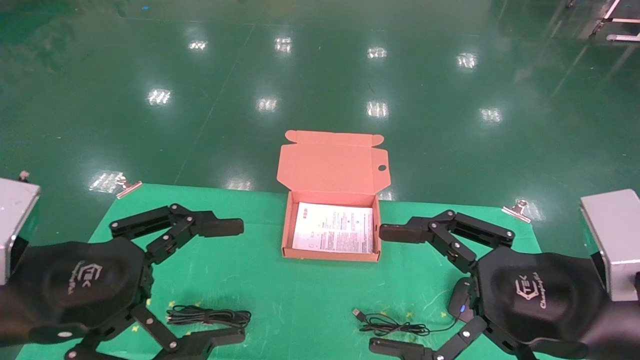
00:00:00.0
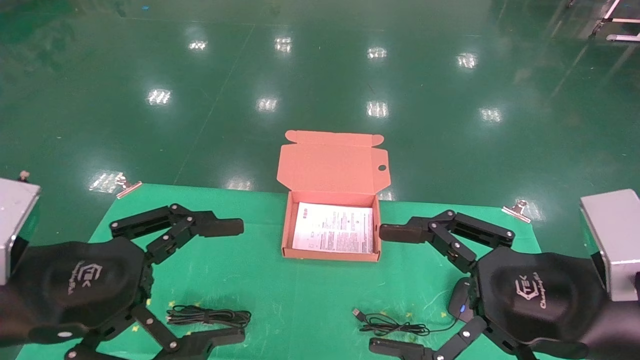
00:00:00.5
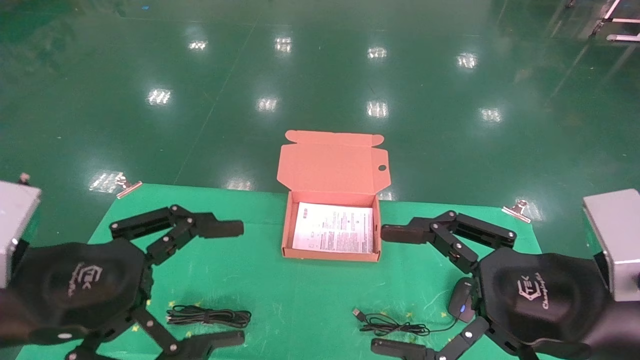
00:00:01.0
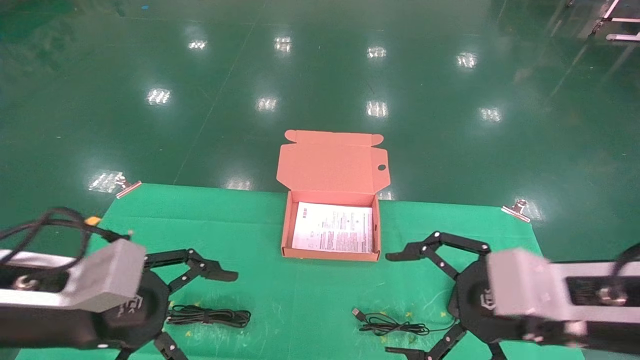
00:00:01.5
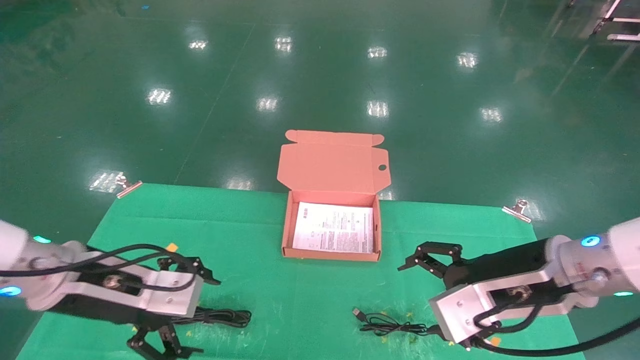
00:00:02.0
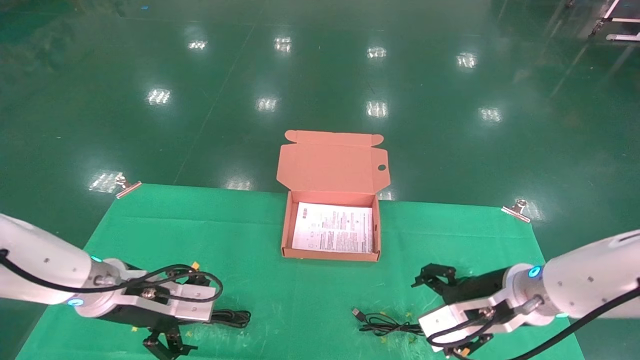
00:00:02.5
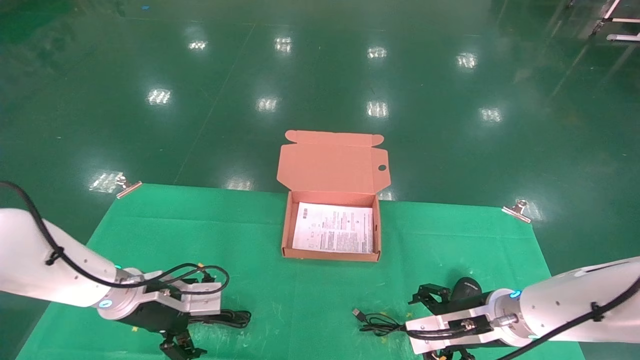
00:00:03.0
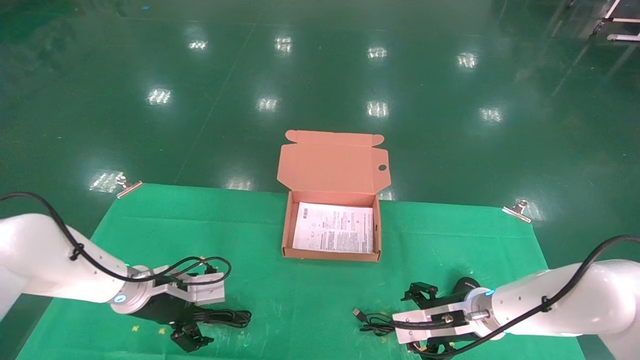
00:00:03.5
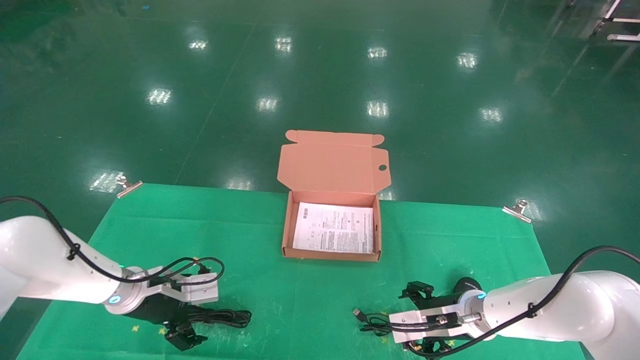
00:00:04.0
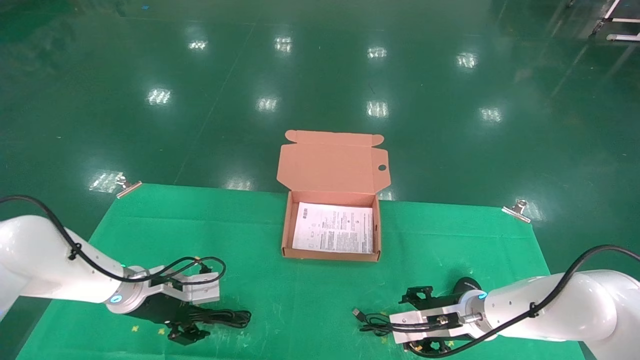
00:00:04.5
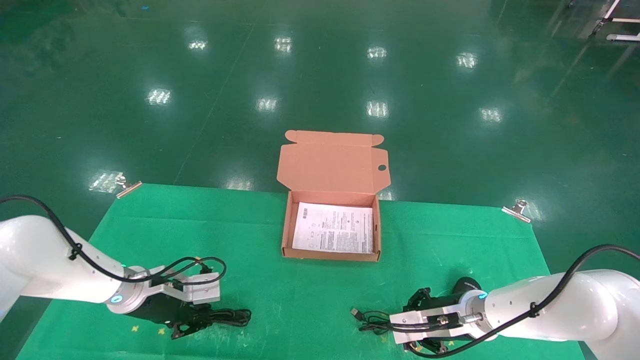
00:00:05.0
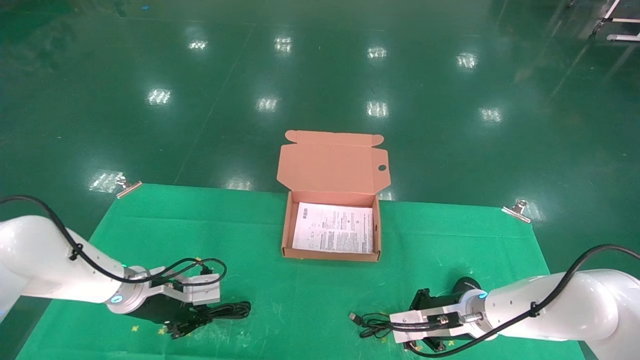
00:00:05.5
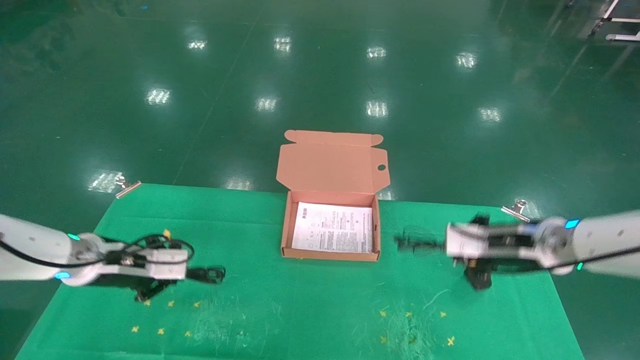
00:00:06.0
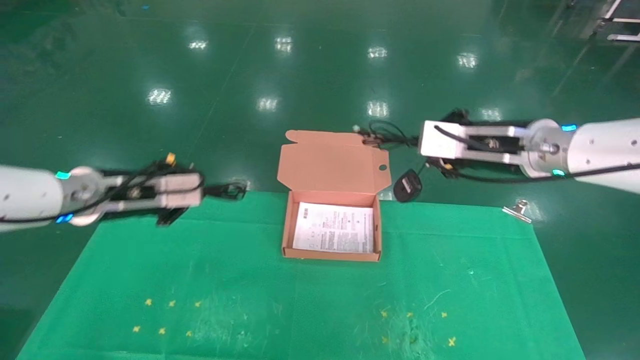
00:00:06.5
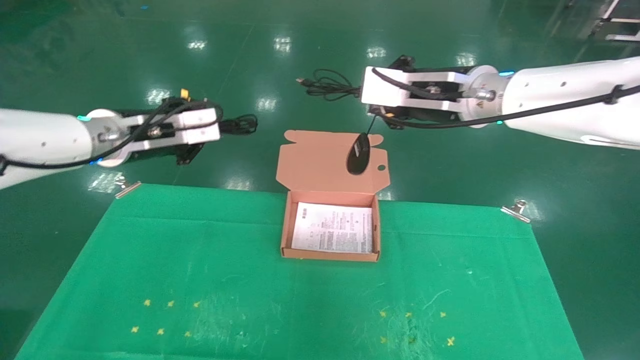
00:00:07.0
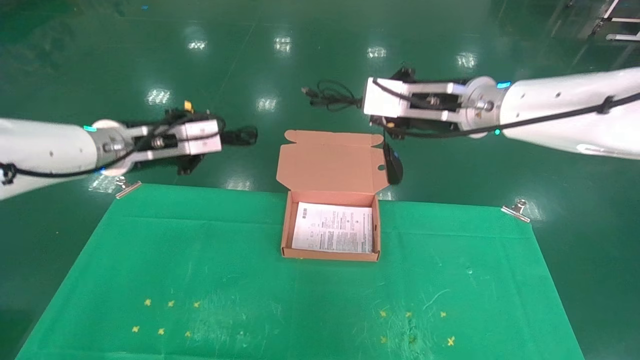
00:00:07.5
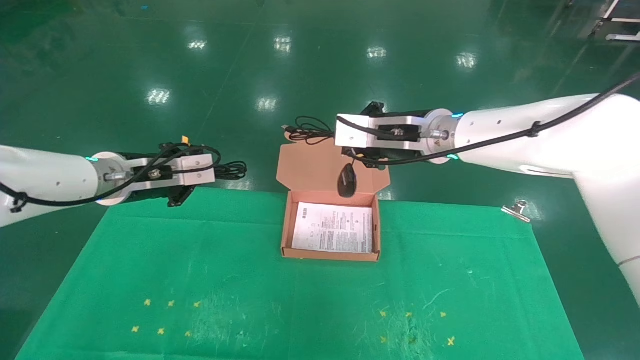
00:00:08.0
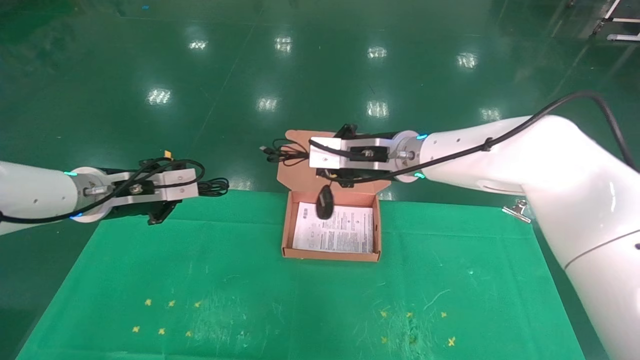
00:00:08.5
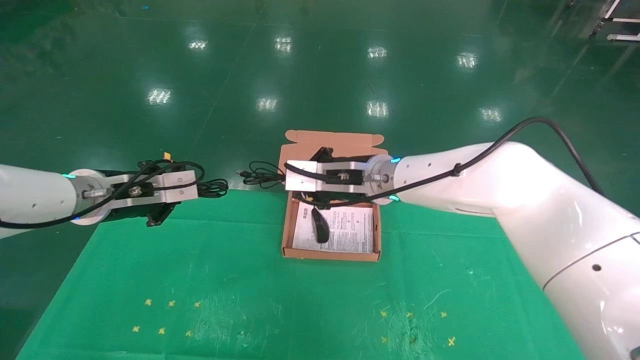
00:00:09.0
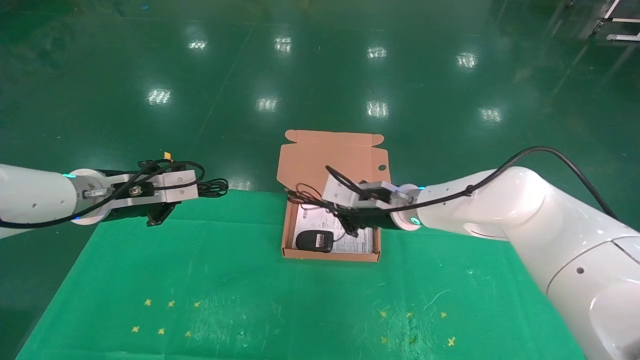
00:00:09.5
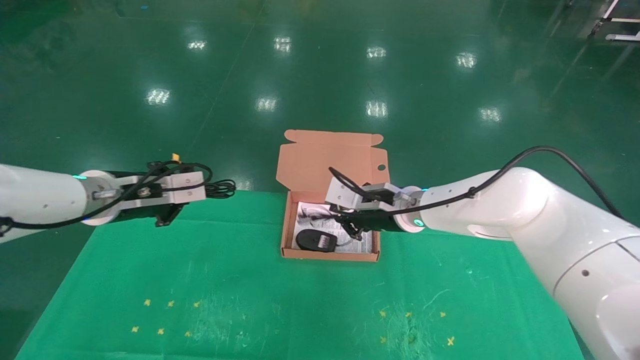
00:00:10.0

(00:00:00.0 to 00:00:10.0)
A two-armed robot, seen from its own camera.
Task of the whole recording: grasp data cable left put into box grasp mouse right put into box.
Step, 00:00:01.5 - 00:00:05.0: Grab and pick up both the mouse and power cord from the accessory packaging area at the same time.
00:00:00.0 - 00:00:02.0: The left gripper moves forward and downward, approximately 15 cm, while the right gripper moves forward, some 10 cm.
00:00:02.0 - 00:00:04.0: The left gripper heads forward and downward, covering roughly 15 cm. The right gripper goes roughly 20 cm downward and forward.
00:00:04.0 - 00:00:06.0: The left gripper heads upward, covering approximately 10 cm, and closes, while the right gripper is displaced upward and to the right by some 15 cm, and closes up.
00:00:06.0 - 00:00:08.0: The right gripper travels to the left and upward by approximately 20 cm; the left gripper goes about 10 cm upward.
00:00:08.0 - 00:00:10.0: The right gripper shifts roughly 10 cm downward.

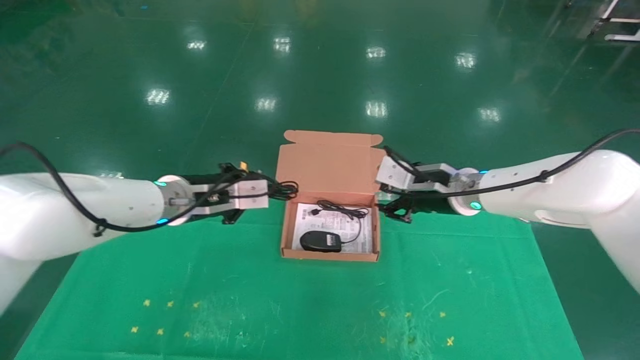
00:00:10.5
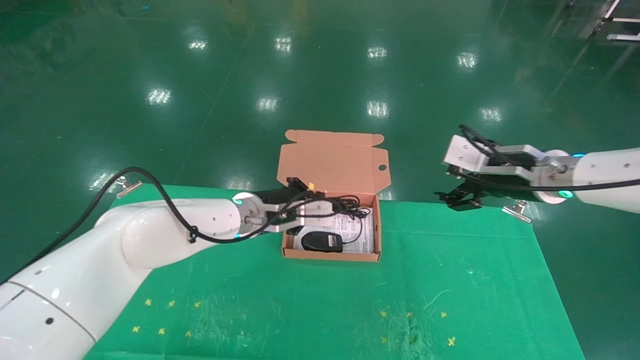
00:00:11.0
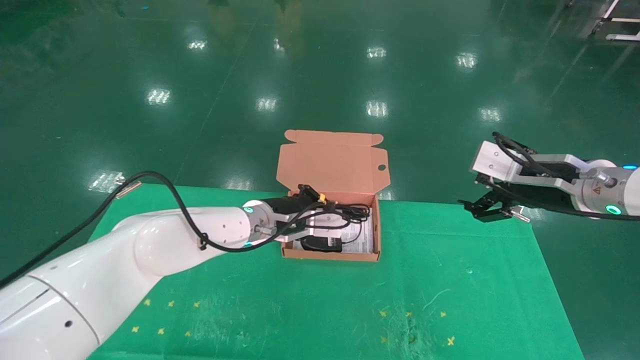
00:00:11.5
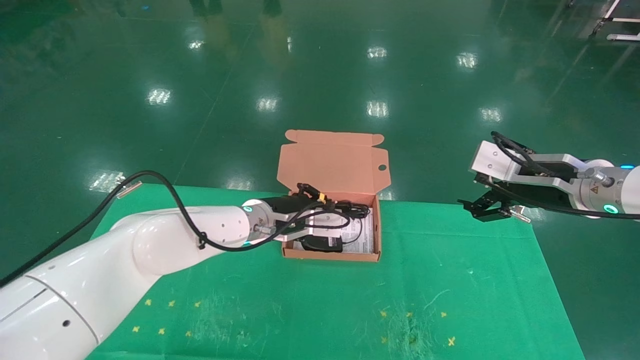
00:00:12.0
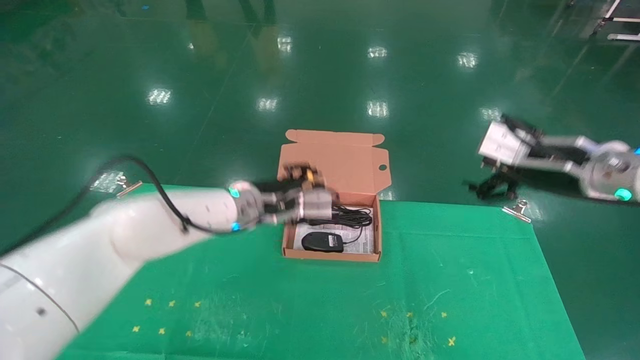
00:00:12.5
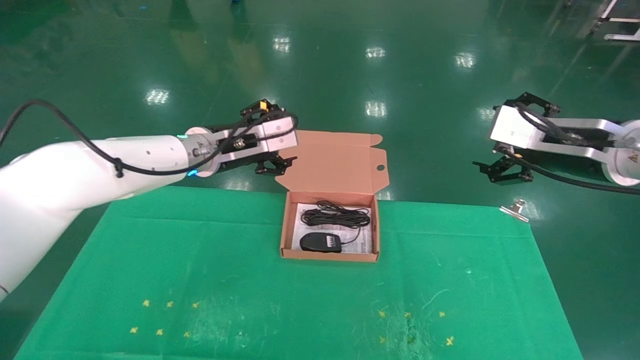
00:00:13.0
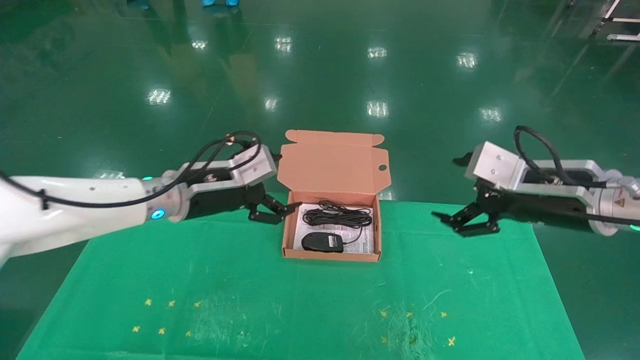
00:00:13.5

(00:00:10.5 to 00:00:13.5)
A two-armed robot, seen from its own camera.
Task of the whole recording: grasp data cable left put into box grasp mouse right put into box.
00:00:10.5 - 00:00:12.0: The left gripper is displaced to the right by some 10 cm; the right gripper shifts about 15 cm to the right and backward, and opens.
00:00:12.0 - 00:00:13.5: The left gripper travels to the left and upward by about 10 cm, and opens up.

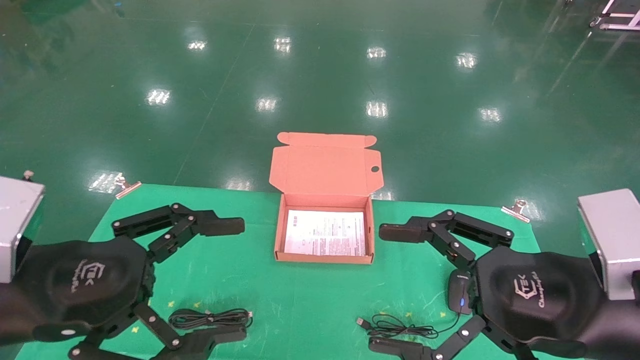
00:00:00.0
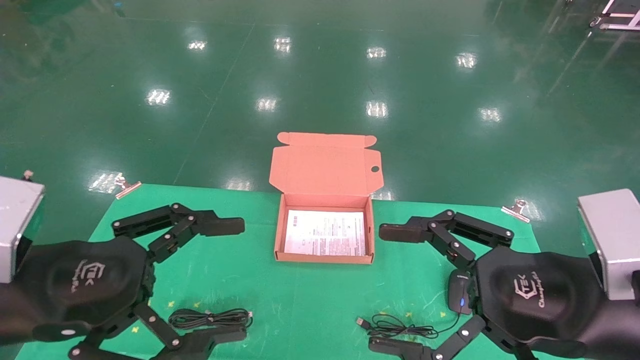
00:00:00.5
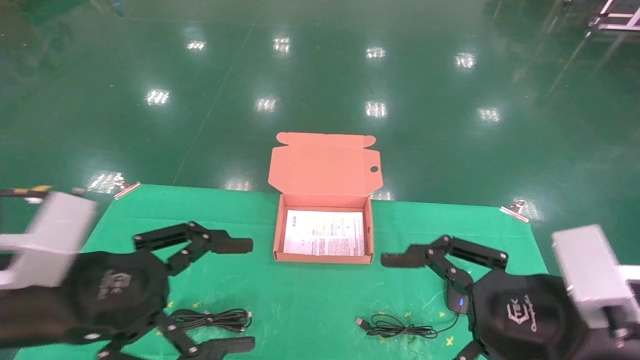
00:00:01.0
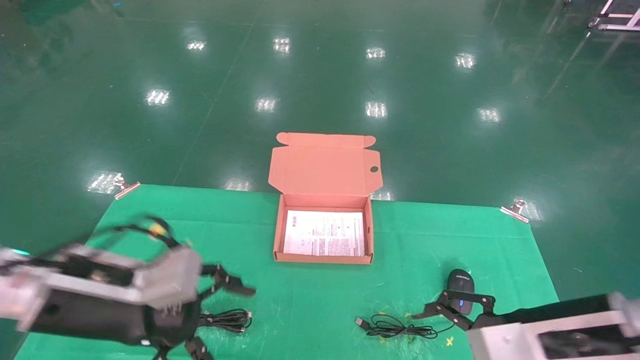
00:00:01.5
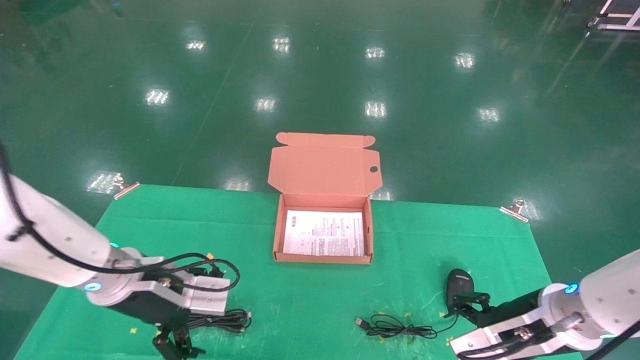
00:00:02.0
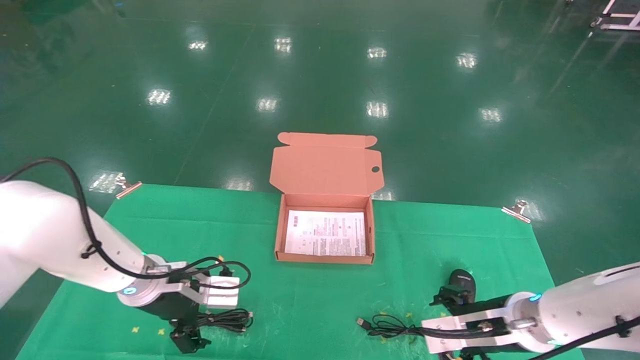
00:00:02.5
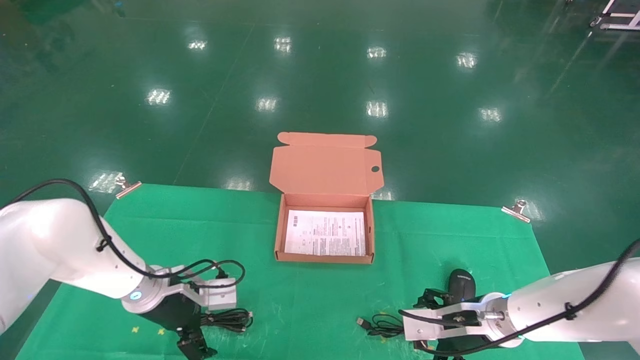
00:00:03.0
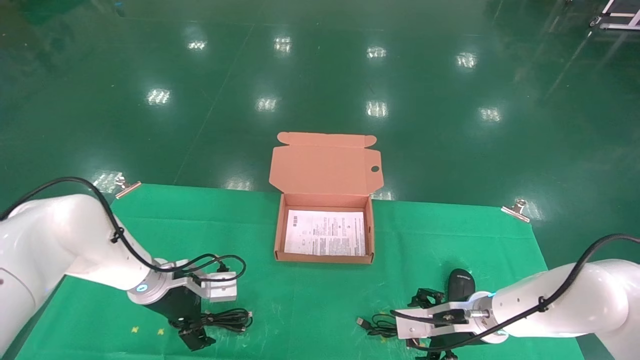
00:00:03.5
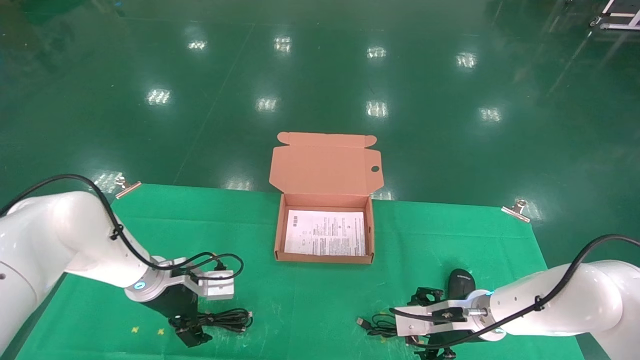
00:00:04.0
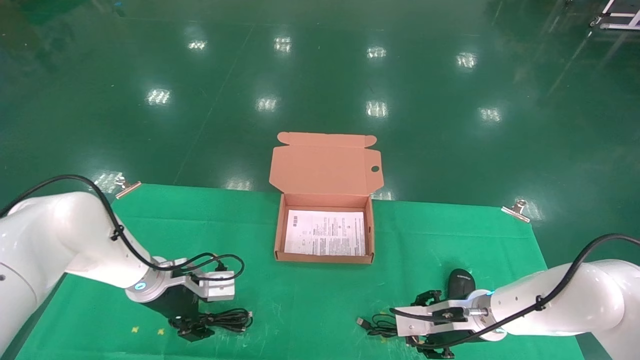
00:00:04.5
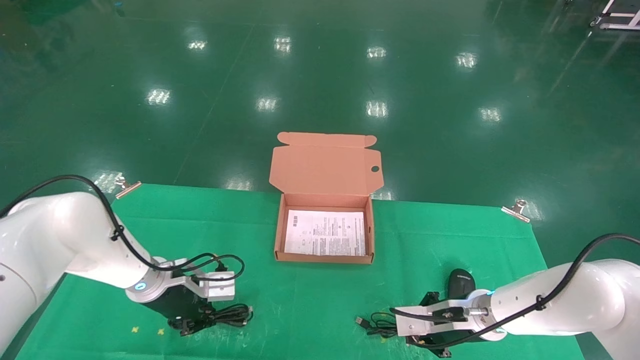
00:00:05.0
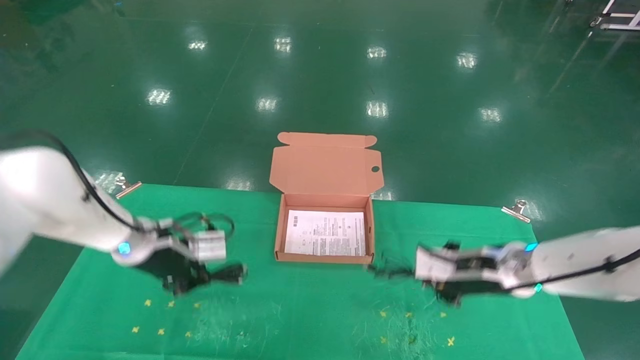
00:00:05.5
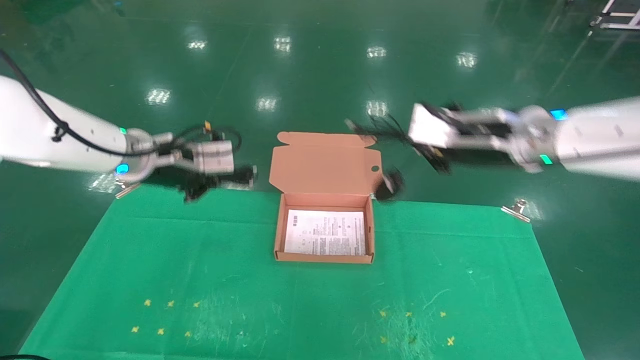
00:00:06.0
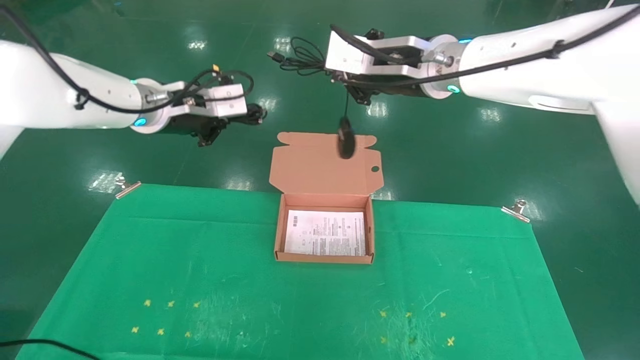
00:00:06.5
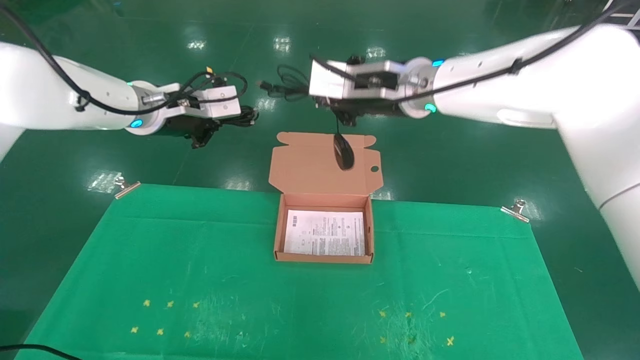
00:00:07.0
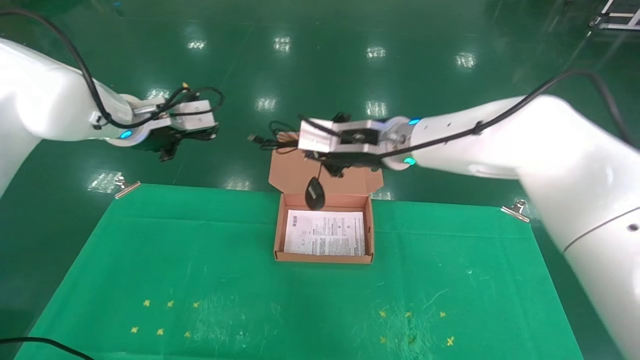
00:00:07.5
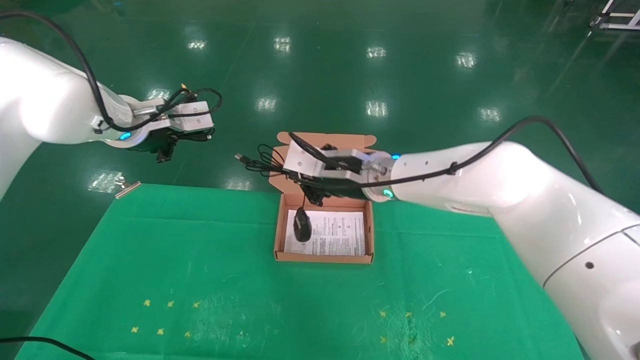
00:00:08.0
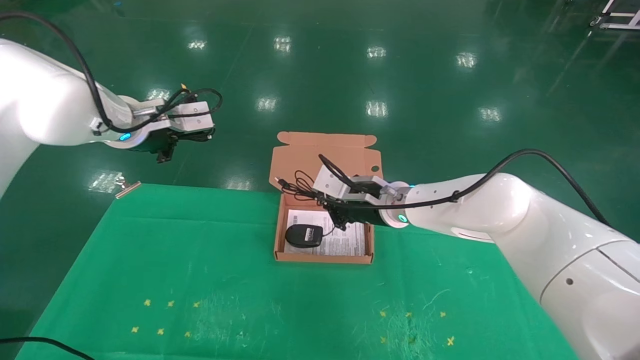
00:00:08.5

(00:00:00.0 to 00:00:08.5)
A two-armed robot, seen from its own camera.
Task of the whole recording: grasp data cable left put into box grasp mouse right put into box.
Step, 00:00:01.0 - 00:00:05.0: Grab and pick up both the mouse and power cord from the accessory packaging area at the same time.
00:00:00.0 - 00:00:02.0: Both grippers travel together forward and downward, roughly 15 cm.
00:00:02.0 - 00:00:04.0: Both grippers travel together forward and downward, approximately 10 cm.
00:00:04.0 - 00:00:06.5: Both grippers travel together upward, roughly 30 cm. The left gripper closes up. The right gripper closes up.
00:00:06.5 - 00:00:08.5: The right gripper travels downward by approximately 20 cm.
